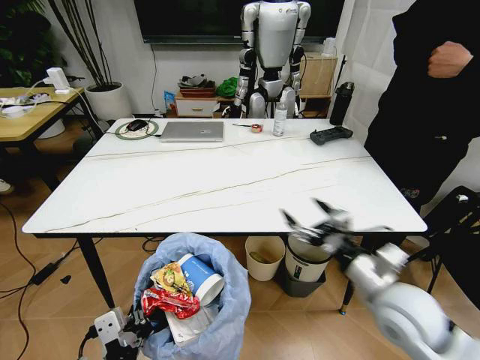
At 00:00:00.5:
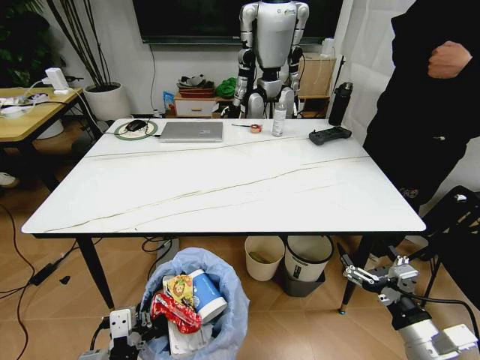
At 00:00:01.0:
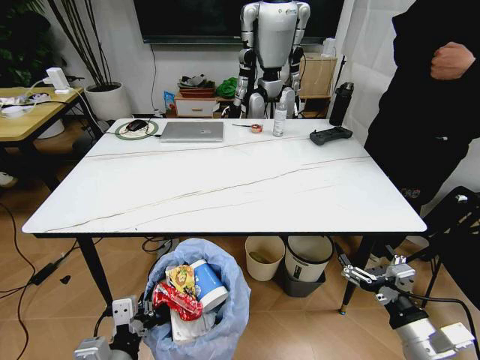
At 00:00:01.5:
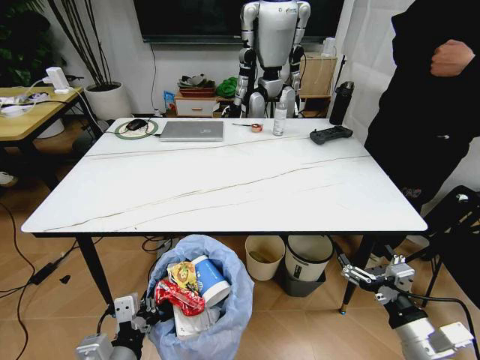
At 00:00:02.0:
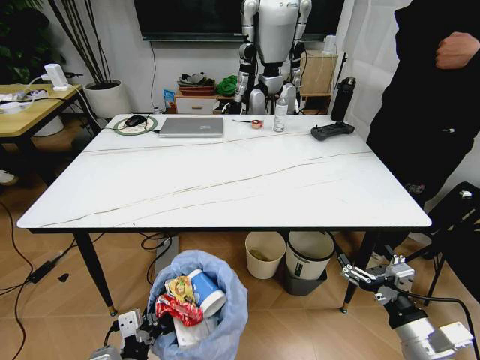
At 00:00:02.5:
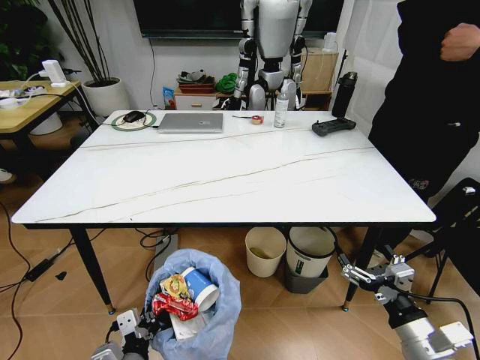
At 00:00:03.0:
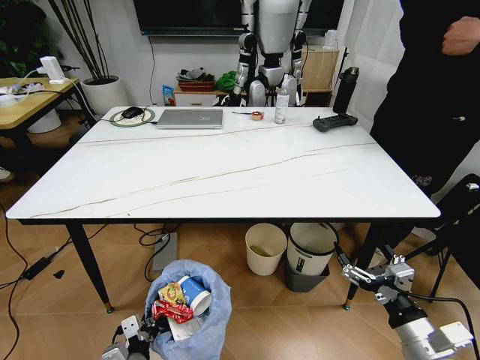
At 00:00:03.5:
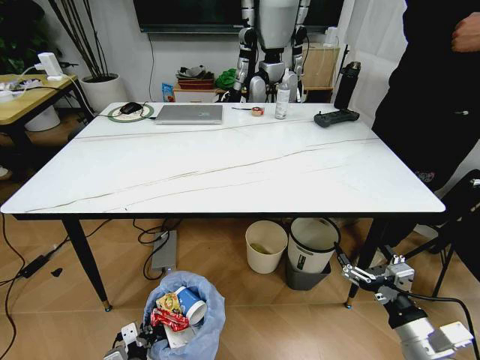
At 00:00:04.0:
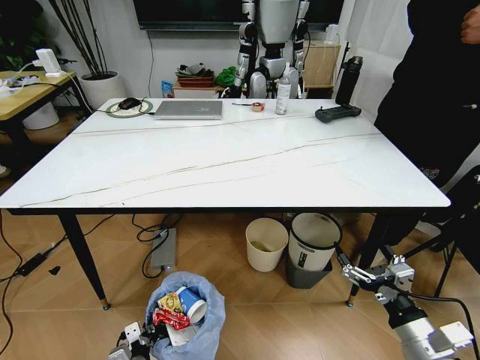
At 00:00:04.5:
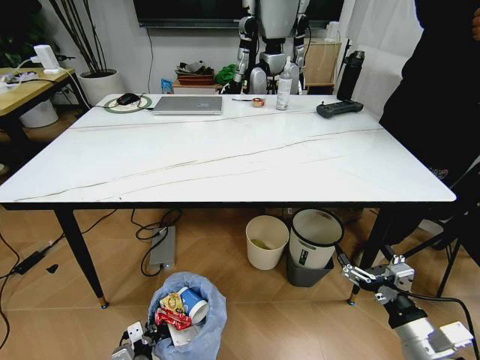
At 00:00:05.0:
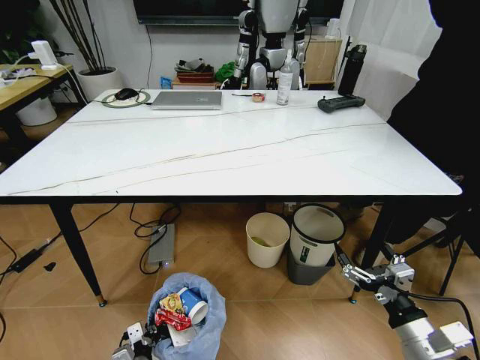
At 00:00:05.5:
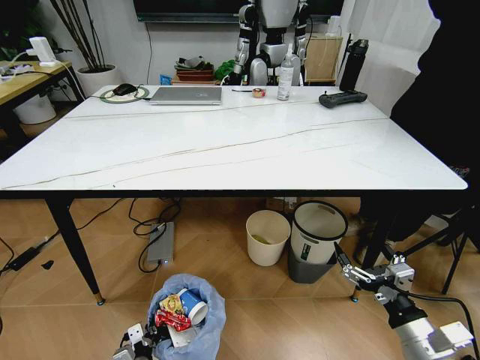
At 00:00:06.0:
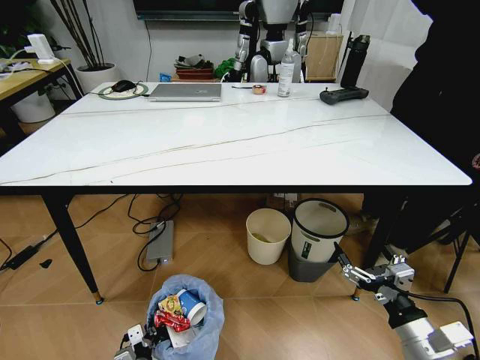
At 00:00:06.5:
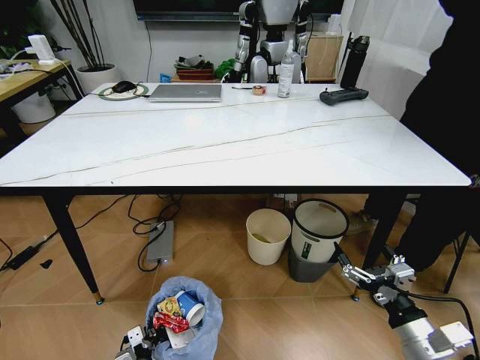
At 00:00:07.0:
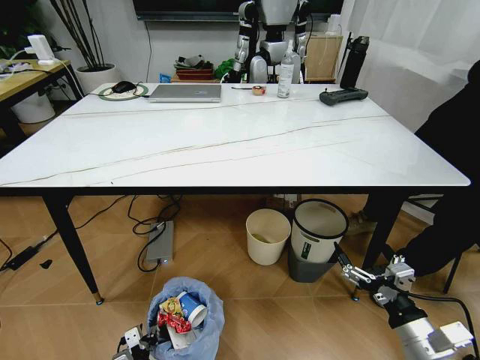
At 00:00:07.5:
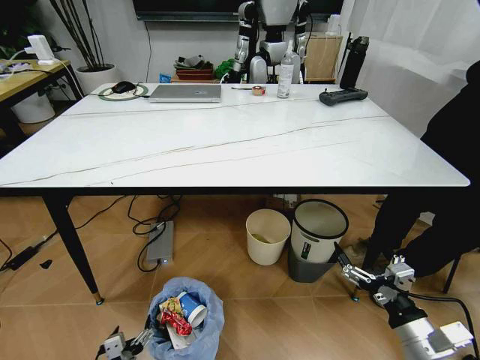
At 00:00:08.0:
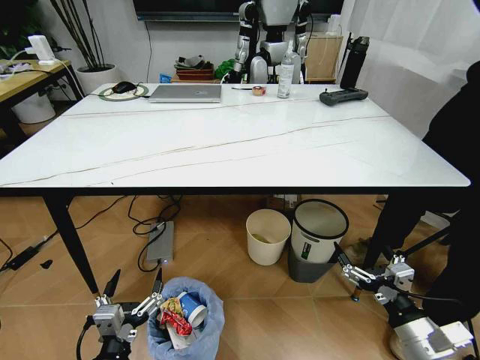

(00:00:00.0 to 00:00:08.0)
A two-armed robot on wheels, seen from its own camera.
Task of the whole recording: Pick up the trash bin and place the trash from the table into it.
00:00:00.0 - 00:00:02.0: The right gripper travels backward, downward and to the right by approximately 15 cm. Meanwhile the left gripper heads downward, covering approximately 10 cm.
00:00:02.0 - 00:00:04.0: The left gripper moves downward, roughly 20 cm.
00:00:06.0 - 00:00:08.0: The left gripper heads upward, covering some 20 cm, and opens up.
